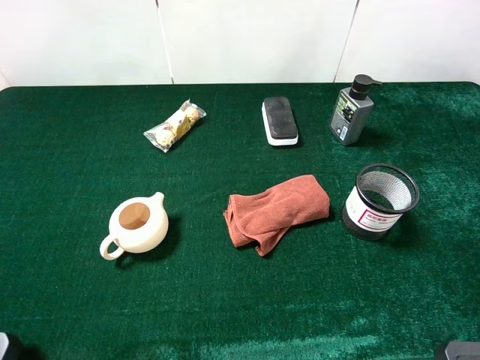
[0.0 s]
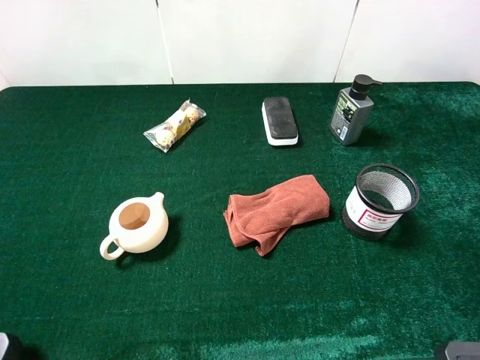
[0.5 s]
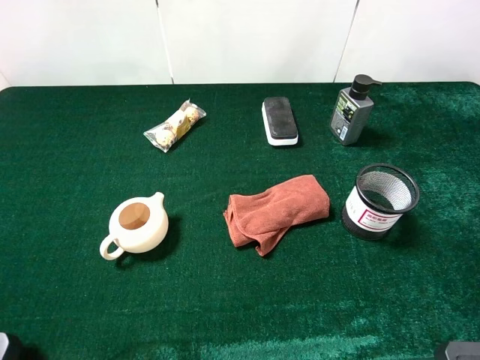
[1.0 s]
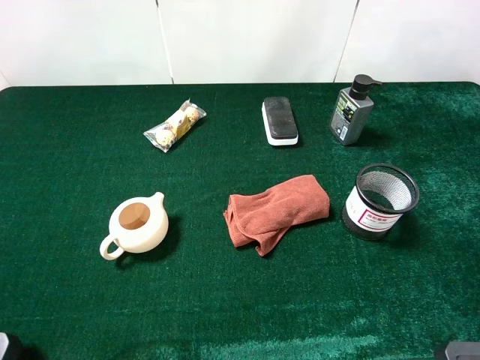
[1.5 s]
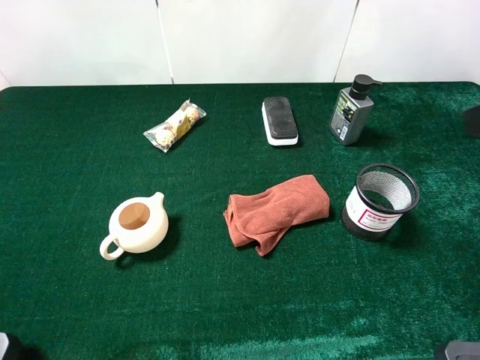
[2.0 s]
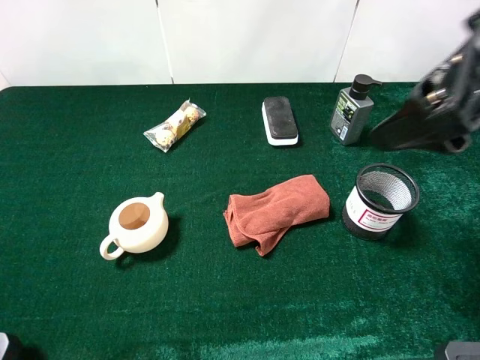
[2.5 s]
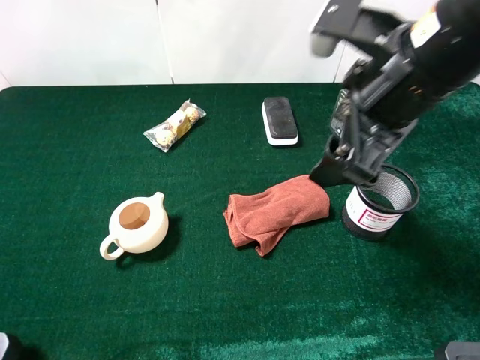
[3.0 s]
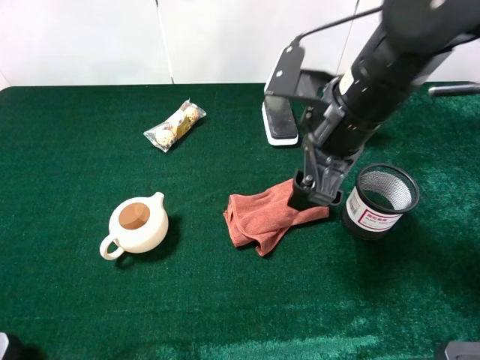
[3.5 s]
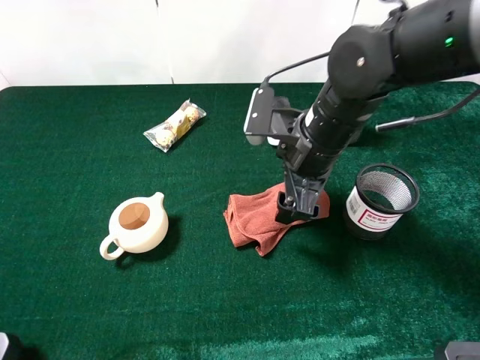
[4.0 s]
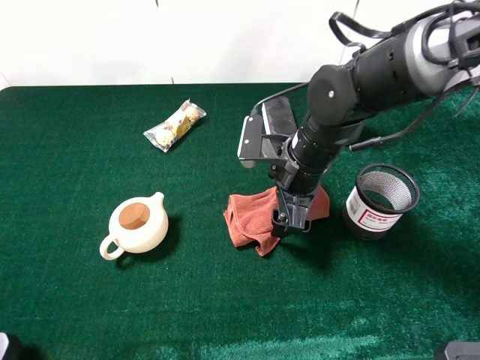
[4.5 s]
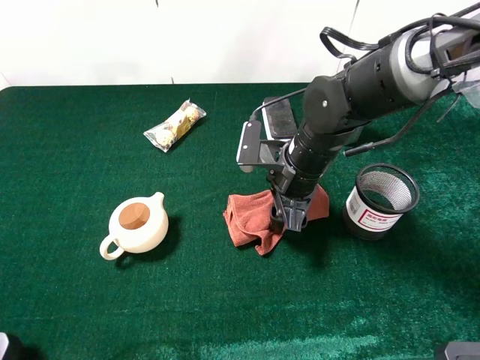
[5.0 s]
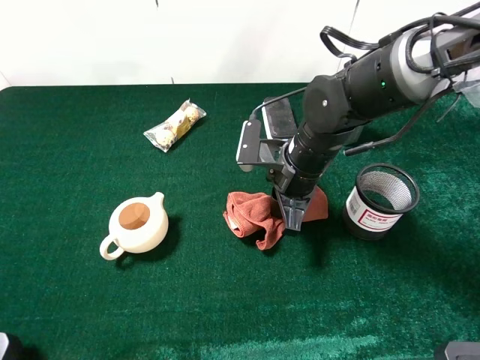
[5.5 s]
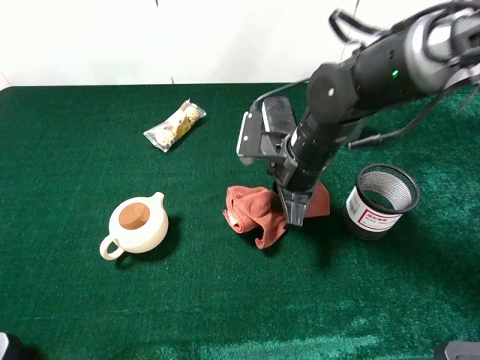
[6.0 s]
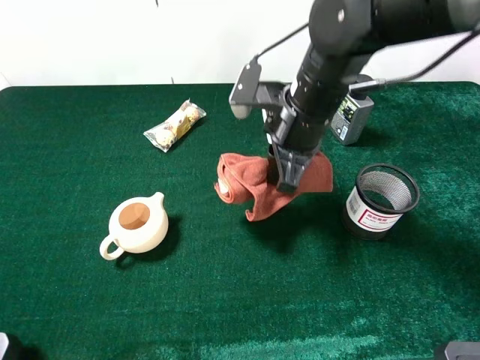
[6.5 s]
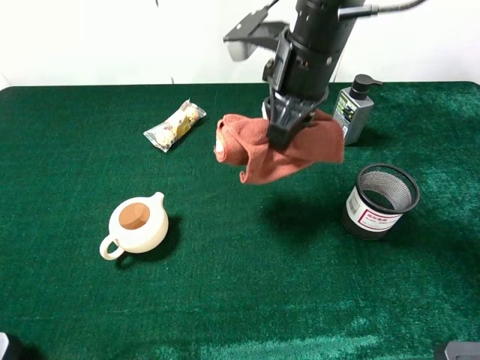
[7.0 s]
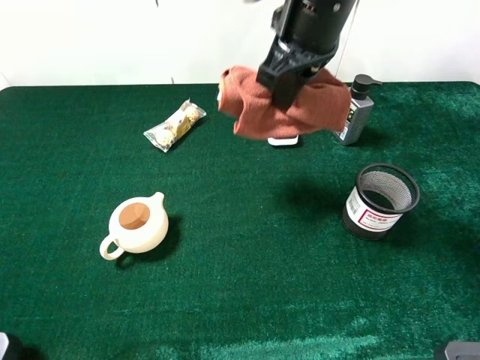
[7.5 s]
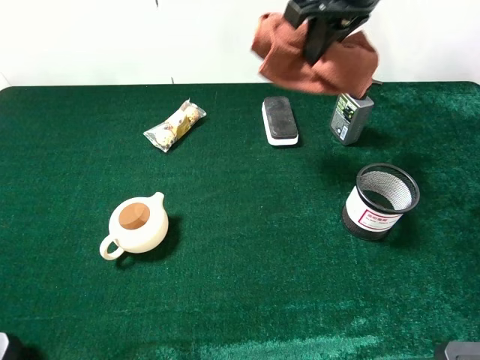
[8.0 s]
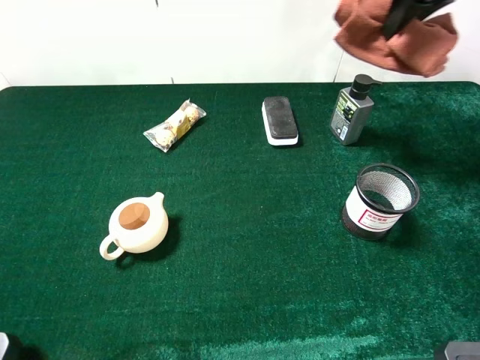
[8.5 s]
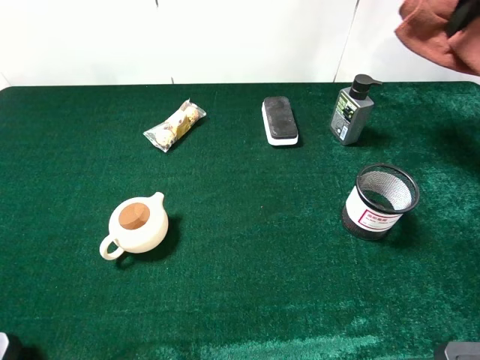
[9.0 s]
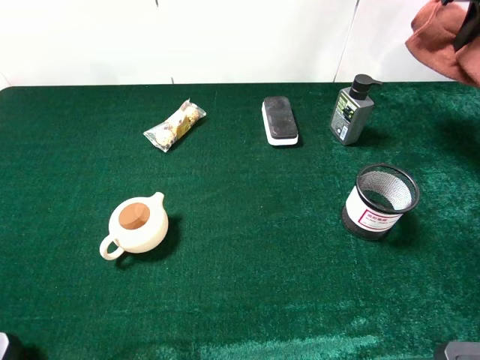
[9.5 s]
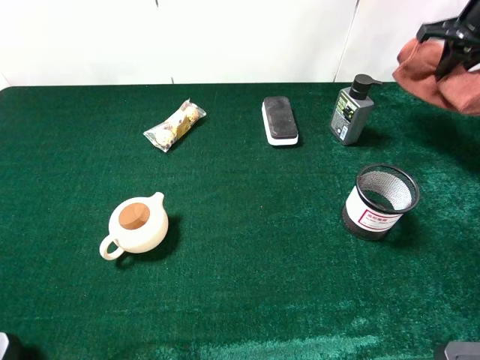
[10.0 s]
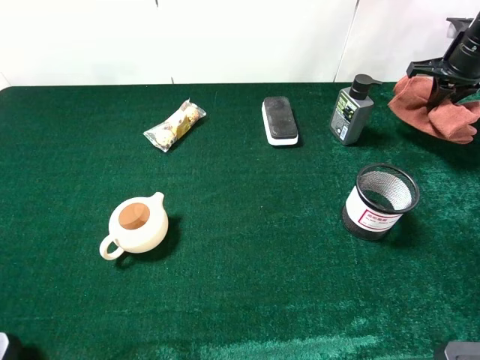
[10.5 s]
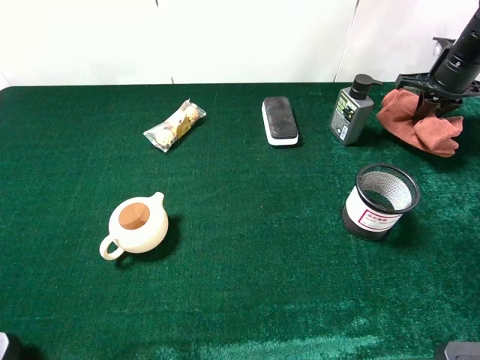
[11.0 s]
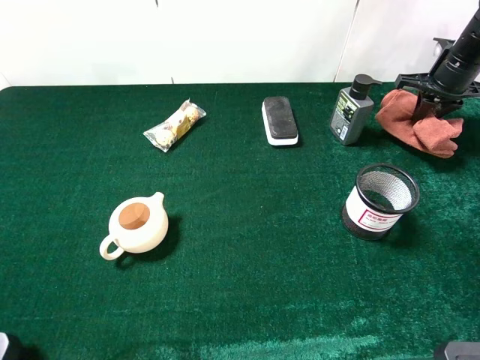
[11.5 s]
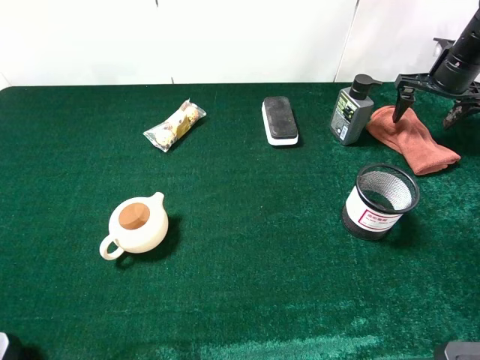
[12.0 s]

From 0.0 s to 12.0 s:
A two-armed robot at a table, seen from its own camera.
Task of the whole recording: the gripper move the object.
Step, from 0.0 s to 5.5 s: Grasp the brown towel with the right gripper mangosteen.
From 2.0 s to 4.0 s: The right gripper moves downward, to the left and forward, approximately 30 cm.
From 4.0 s to 6.0 s: The right gripper closes.
From 6.0 s to 8.0 s: The right gripper travels upward and forward by roughly 20 cm.
From 8.0 s to 10.0 s: The right gripper is displaced to the right and forward by approximately 25 cm.
From 10.0 s to 12.0 s: The right gripper moves downward, roughly 10 cm, and opens up.

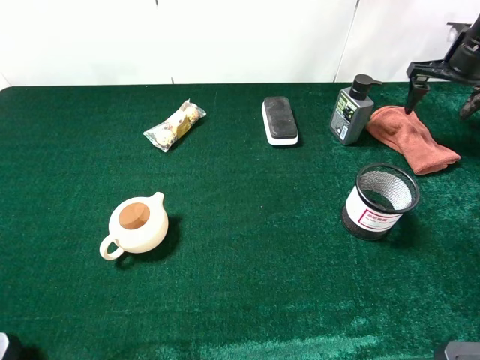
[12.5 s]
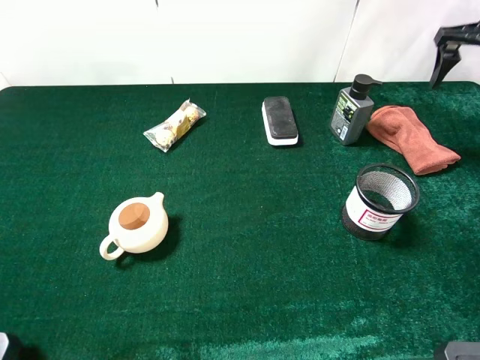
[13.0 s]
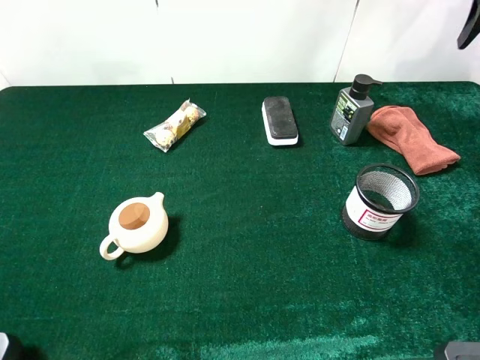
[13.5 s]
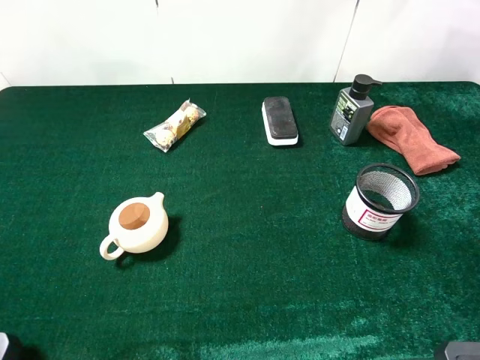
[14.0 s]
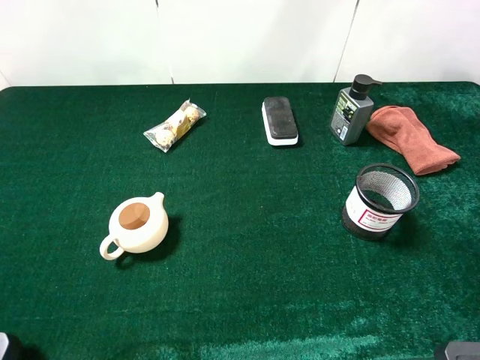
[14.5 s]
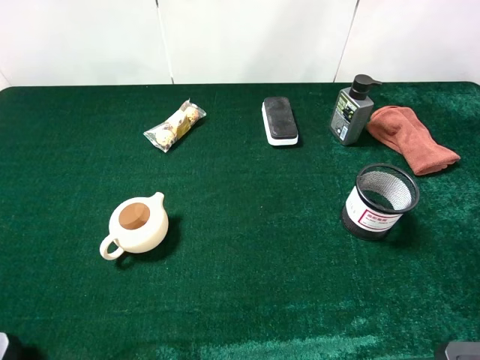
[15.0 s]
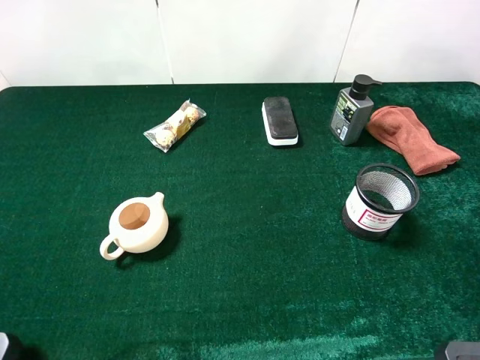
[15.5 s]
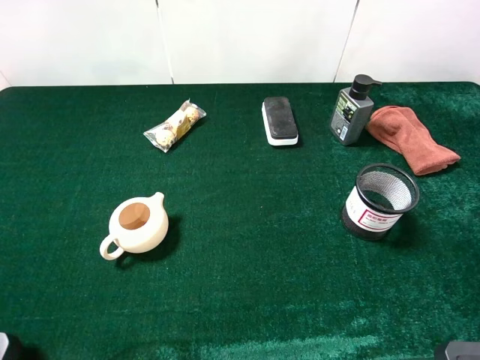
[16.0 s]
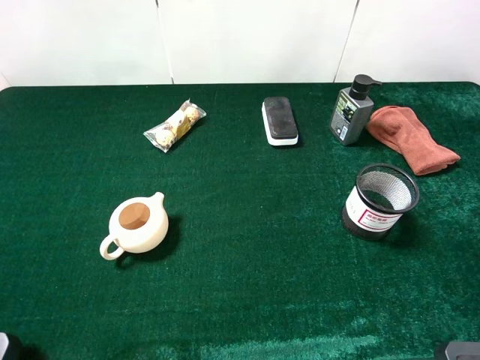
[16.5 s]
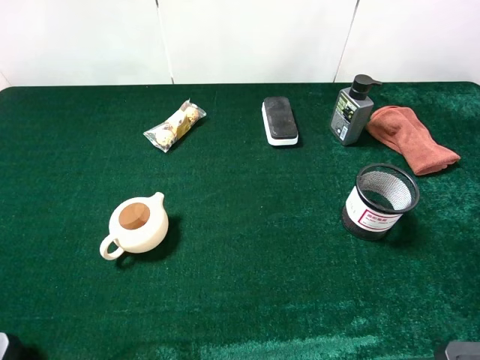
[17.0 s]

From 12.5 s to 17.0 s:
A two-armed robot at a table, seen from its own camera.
Task of the whole recording: the gripper move the object.
From 12.5 s to 14.5 s: The right gripper heads backward and upward, covering approximately 35 cm.

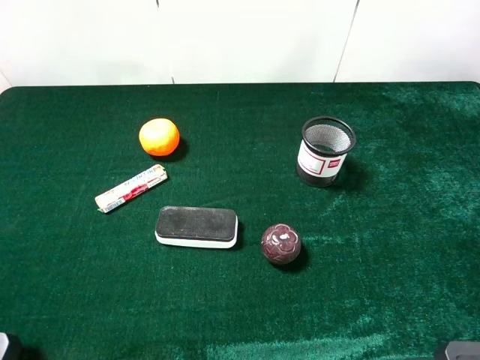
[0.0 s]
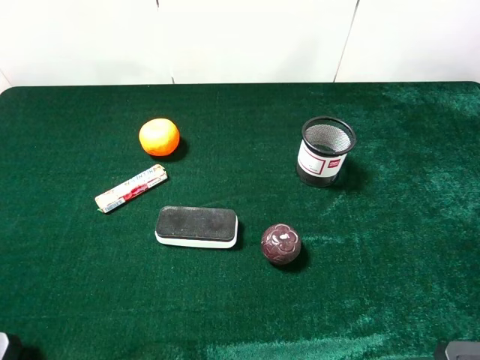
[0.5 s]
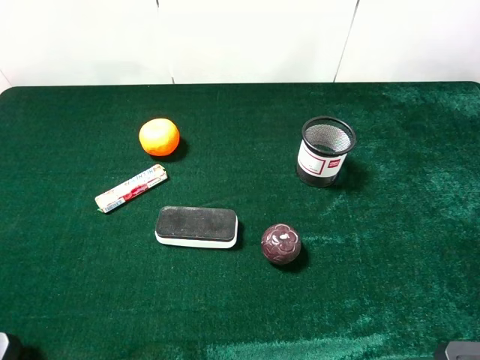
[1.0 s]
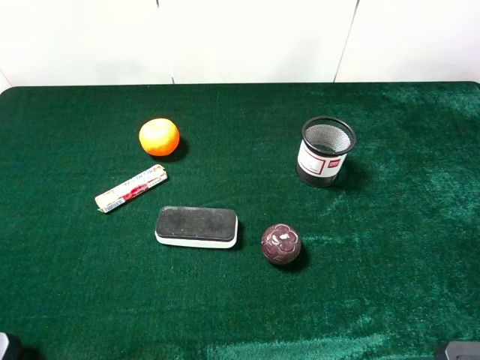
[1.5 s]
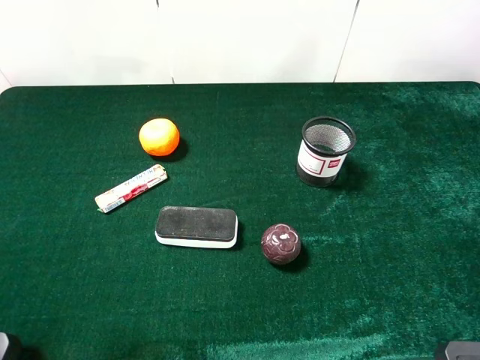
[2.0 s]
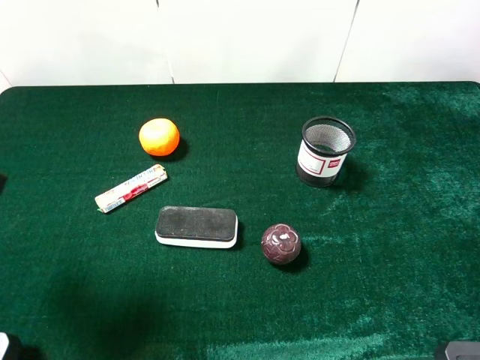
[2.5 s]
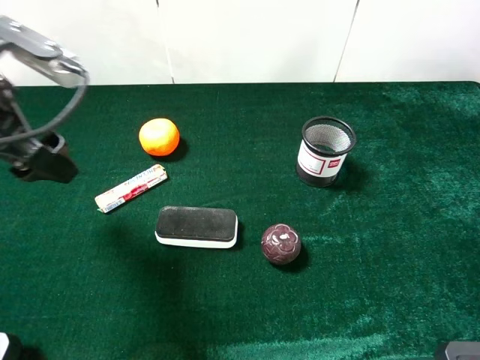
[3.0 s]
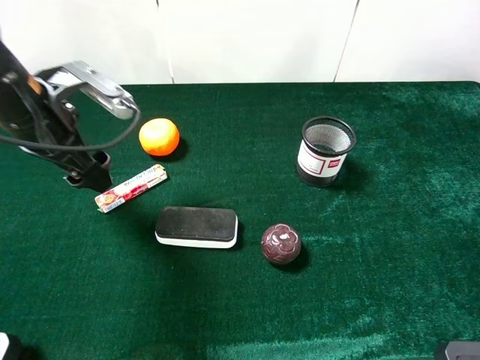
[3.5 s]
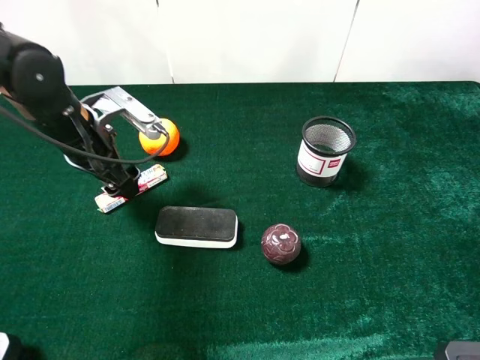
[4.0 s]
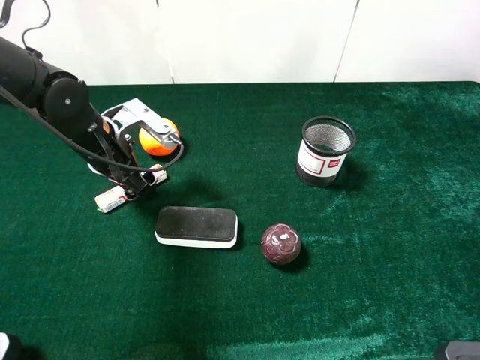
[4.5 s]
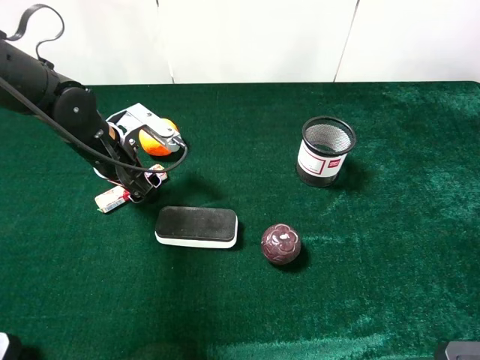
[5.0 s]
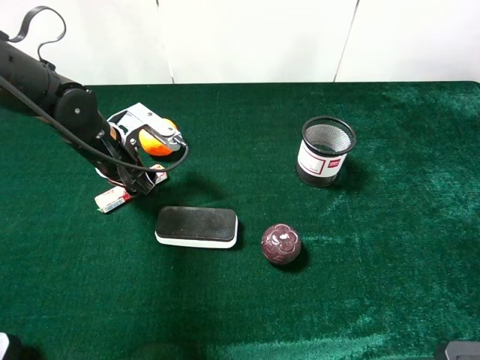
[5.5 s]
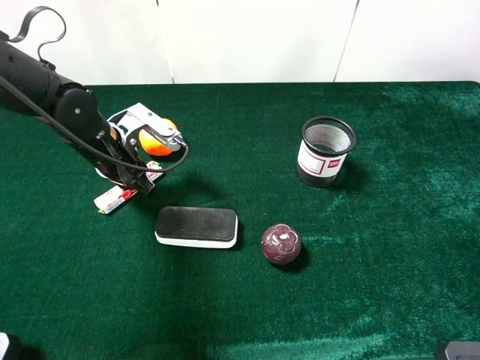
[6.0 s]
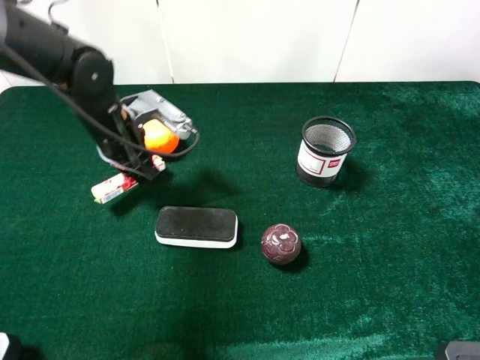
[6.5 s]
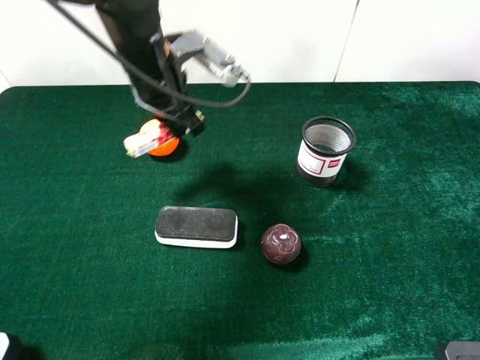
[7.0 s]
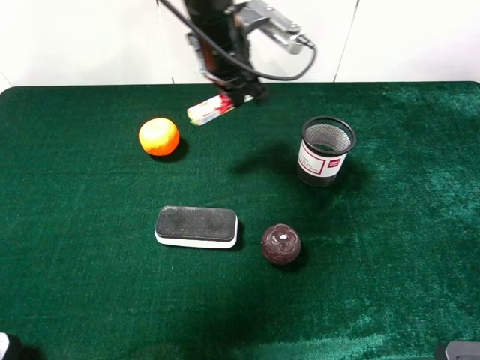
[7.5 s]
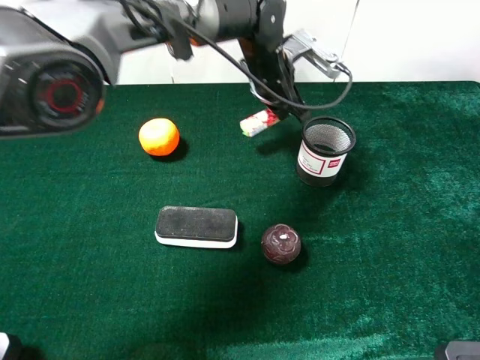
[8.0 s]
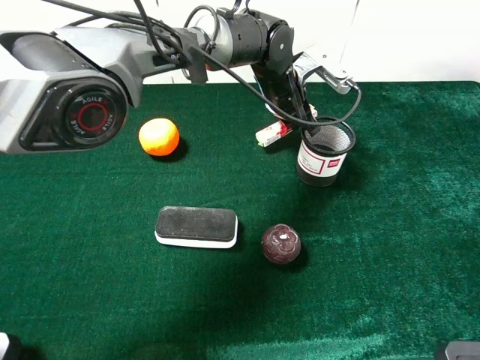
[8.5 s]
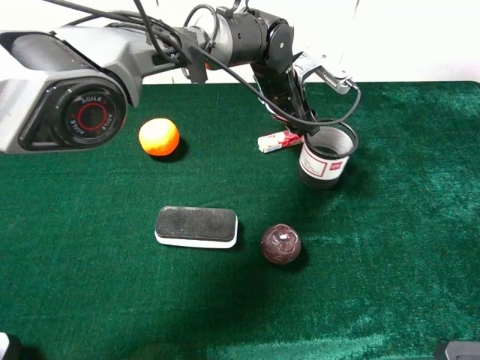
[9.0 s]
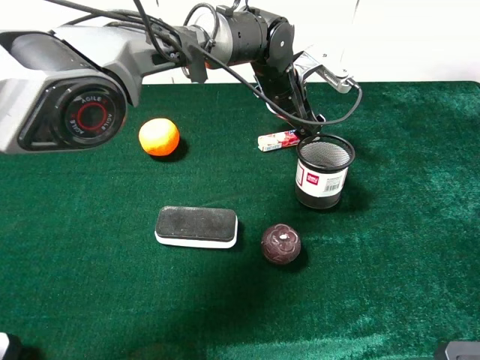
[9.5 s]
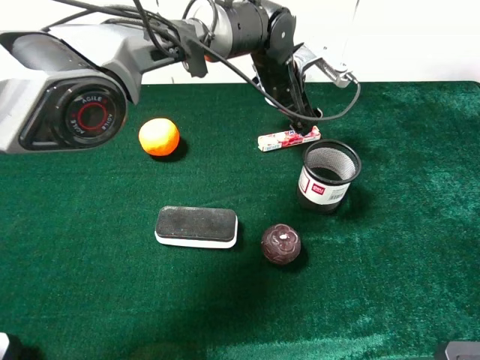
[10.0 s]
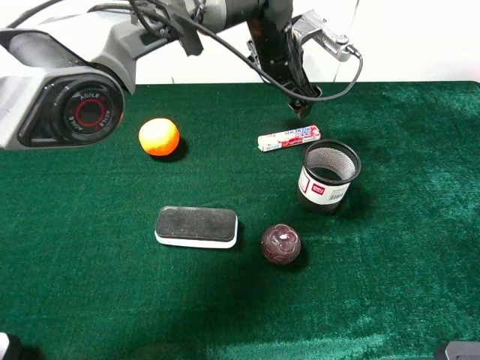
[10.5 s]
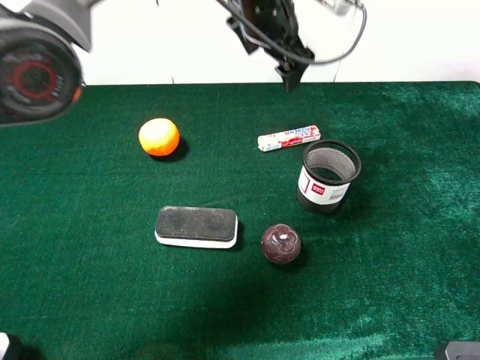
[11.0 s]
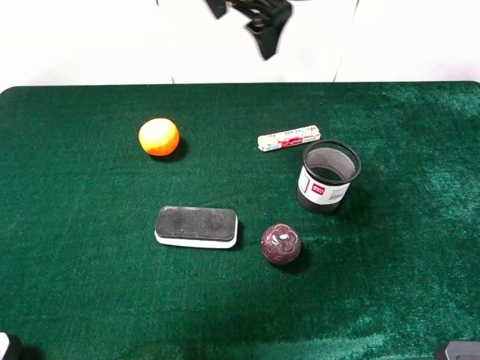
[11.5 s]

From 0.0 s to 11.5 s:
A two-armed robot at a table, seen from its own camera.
Task of the whole recording: the gripper move the object.
Step, from 0.0 s to 5.5 s: Grasp the fruit candy with the left gripper.
Step, from 6.0 s to 9.0 s: Place the fruit candy on the table with the left gripper.
From 2.0 s to 4.0 s: The left gripper moves forward, downward and to the right, roughly 30 cm.
From 4.0 s to 6.0 s: The left gripper closes.
From 6.0 s to 7.5 s: The left gripper moves to the right, upward and forward, about 25 cm.
From 7.5 s to 9.5 s: The left gripper is displaced downward and to the right by about 10 cm, and opens its fingers.
From 9.5 s to 11.5 s: The left gripper moves upward and to the left, roughly 25 cm.
